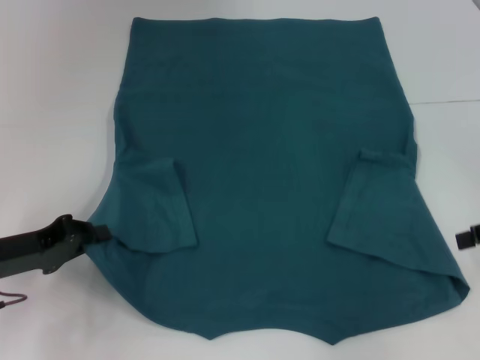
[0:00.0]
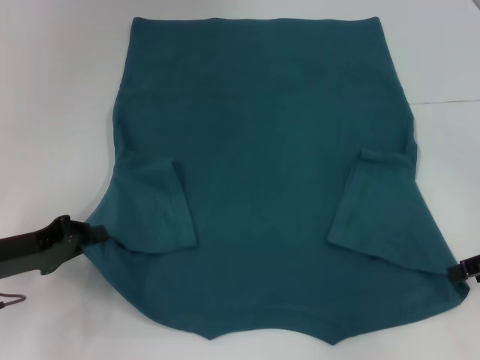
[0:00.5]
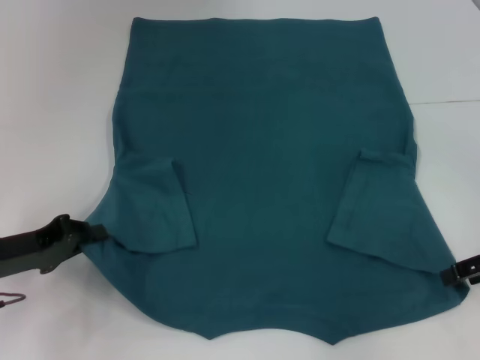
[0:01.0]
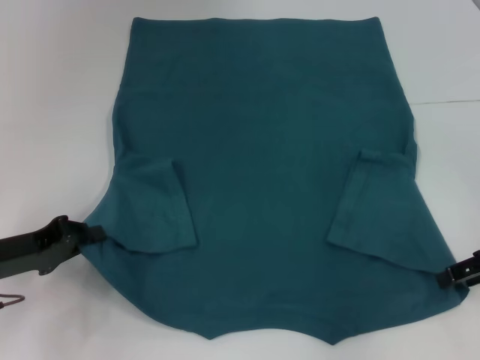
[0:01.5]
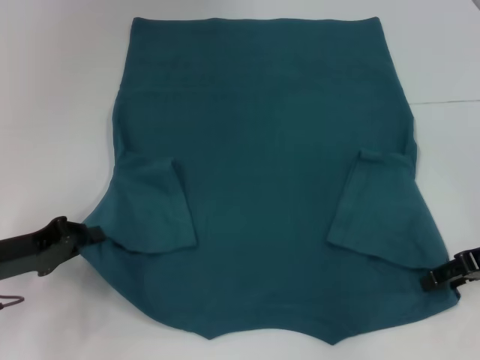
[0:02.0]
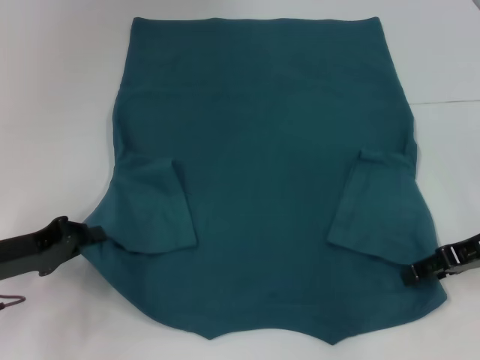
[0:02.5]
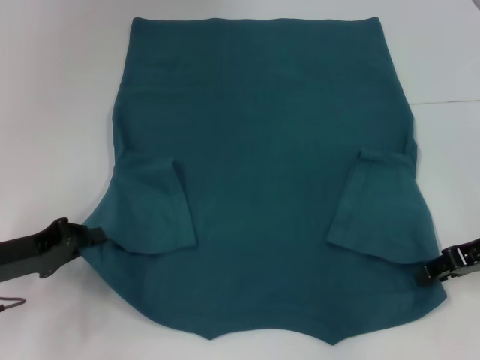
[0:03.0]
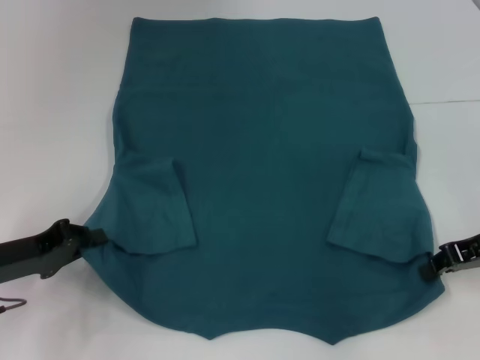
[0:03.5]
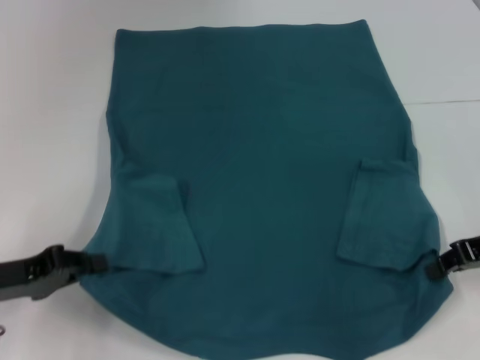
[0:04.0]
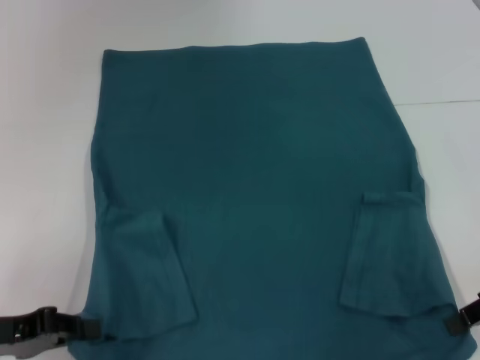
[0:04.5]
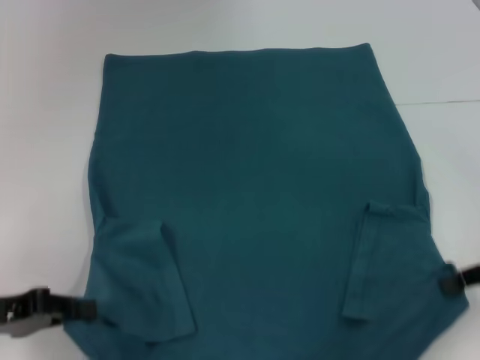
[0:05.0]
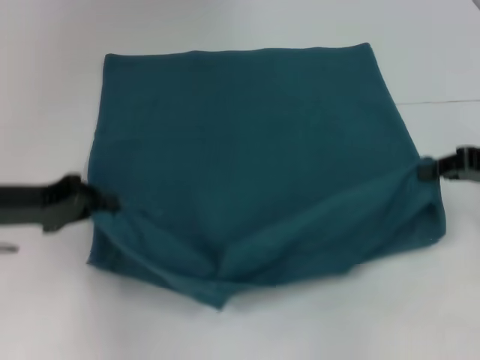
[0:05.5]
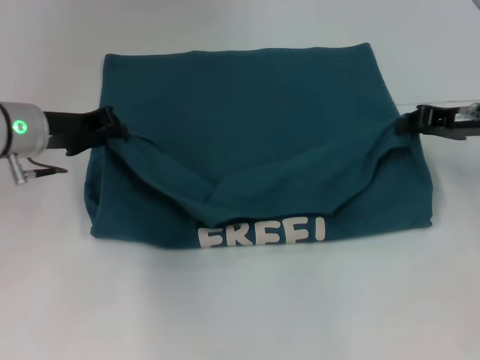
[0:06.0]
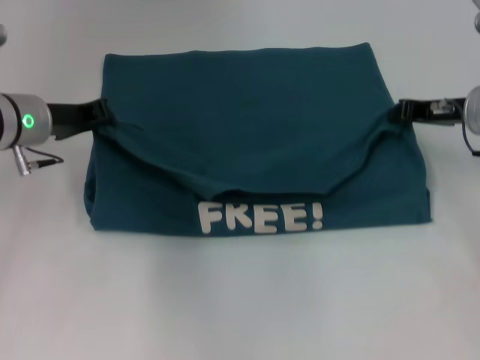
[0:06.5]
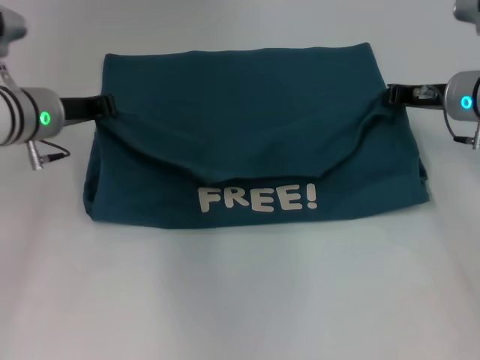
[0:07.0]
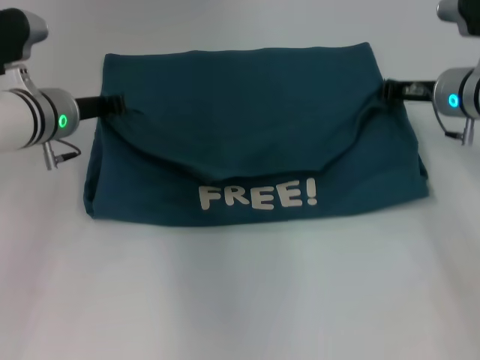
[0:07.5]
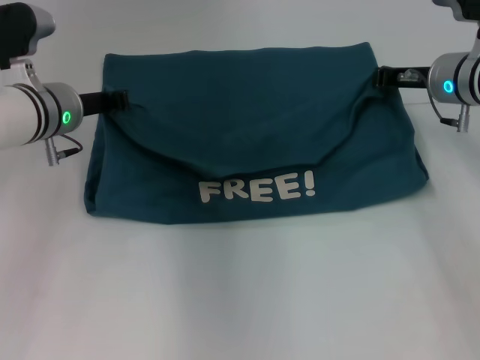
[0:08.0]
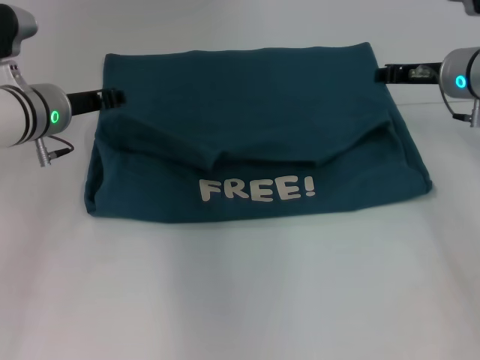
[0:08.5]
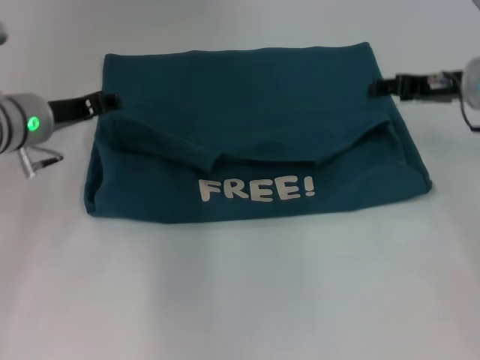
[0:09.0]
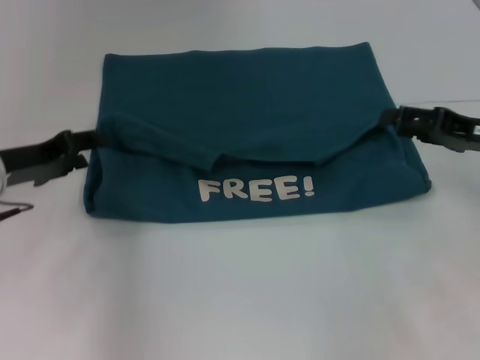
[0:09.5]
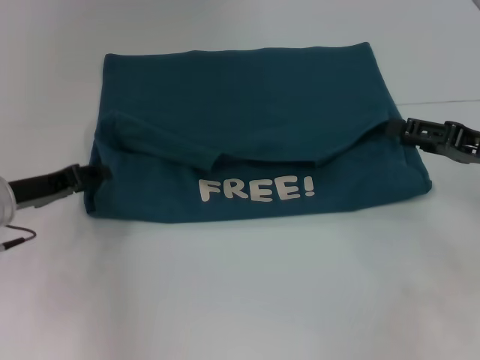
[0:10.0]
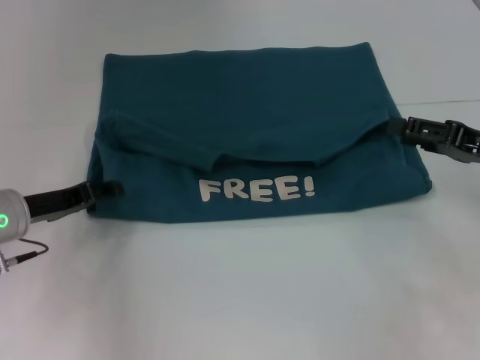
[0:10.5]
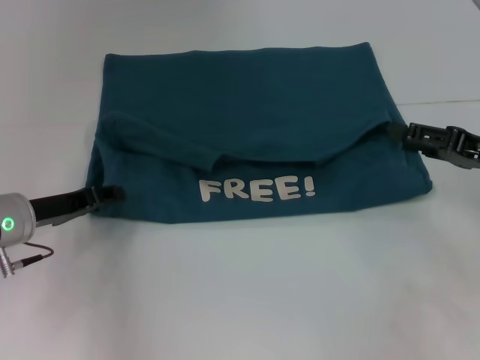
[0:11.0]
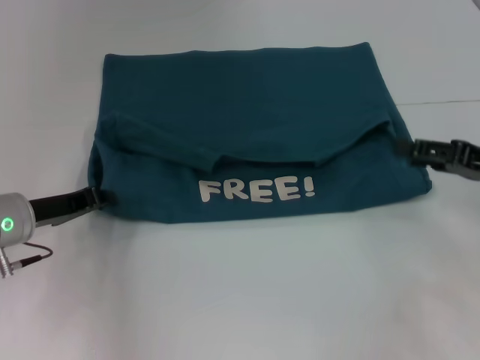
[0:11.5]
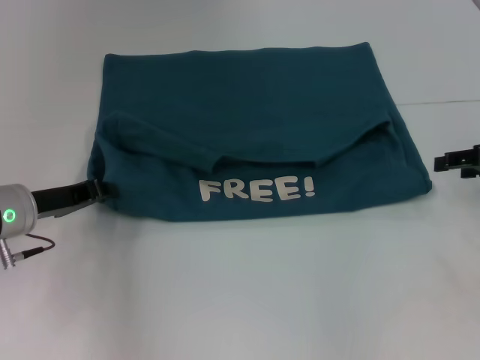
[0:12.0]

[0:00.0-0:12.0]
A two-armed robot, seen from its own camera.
Step, 0:00.0 to 0:04.0: Grab the bottom right corner with your right hand.
Step, 0:04.5 to 0:08.5: Fold the clothes to the left.
Step, 0:04.5 to 0:08.5: Fold the clothes to the right.
0:00.0 to 0:02.0: The right gripper ends up roughly 5 cm from where it was.
0:02.0 to 0:04.0: The right gripper closes its fingers.
0:04.0 to 0:06.0: The left gripper shifts roughly 15 cm forward, to the right and upward; the right gripper travels forward by approximately 10 cm.
0:06.0 to 0:08.0: The left gripper ends up about 5 cm from where it was. Meanwhile the right gripper is displaced to the left and forward by approximately 10 cm.
0:08.0 to 0:10.0: The left gripper heads to the left, backward and downward, covering approximately 15 cm, and opens. Meanwhile the right gripper travels backward and to the right by roughly 15 cm, and opens its fingers.
0:10.0 to 0:12.0: The right gripper shifts by some 5 cm. The left gripper closes.

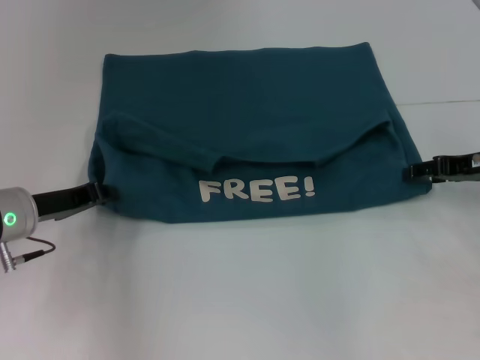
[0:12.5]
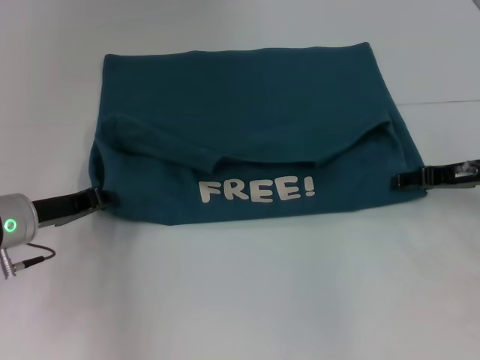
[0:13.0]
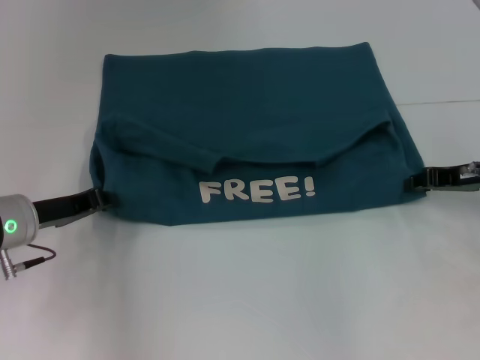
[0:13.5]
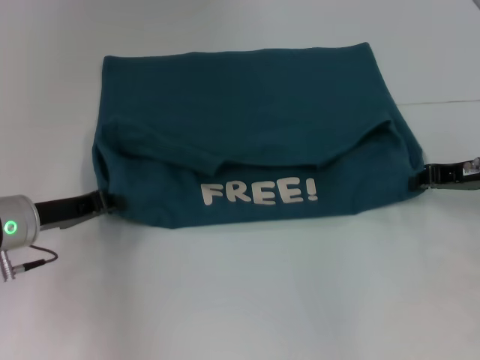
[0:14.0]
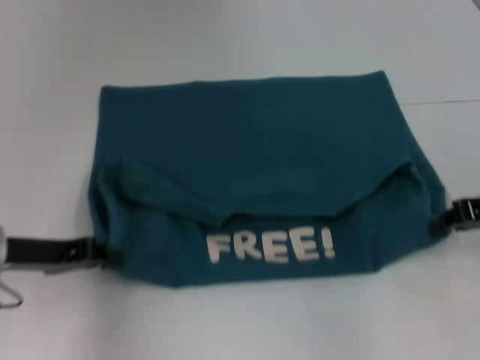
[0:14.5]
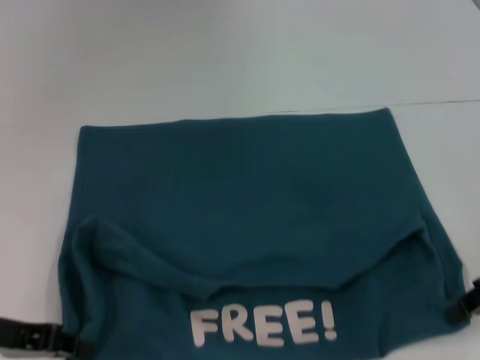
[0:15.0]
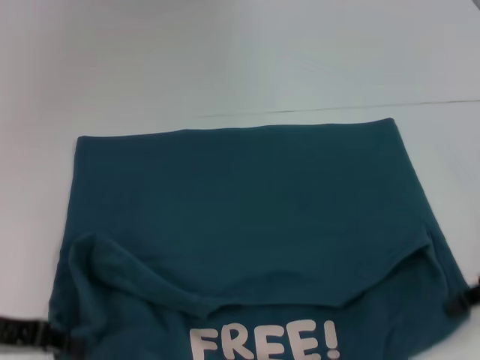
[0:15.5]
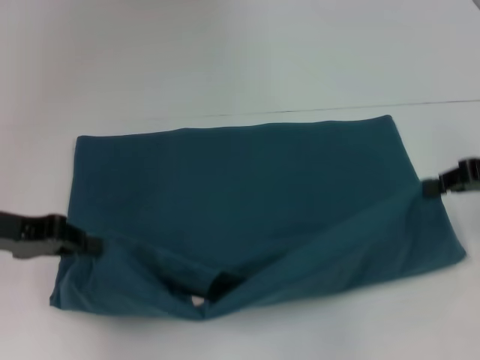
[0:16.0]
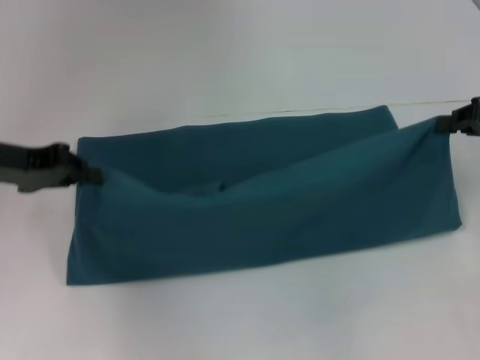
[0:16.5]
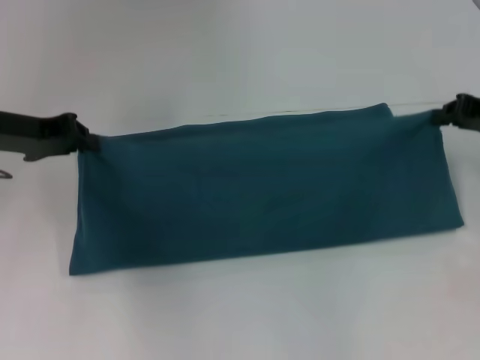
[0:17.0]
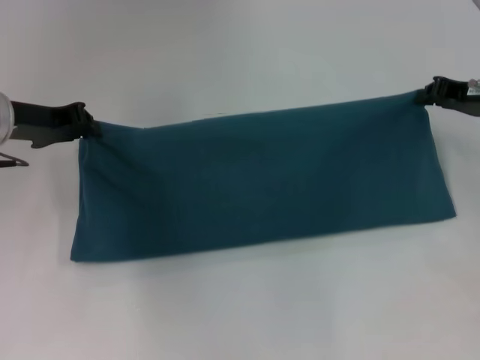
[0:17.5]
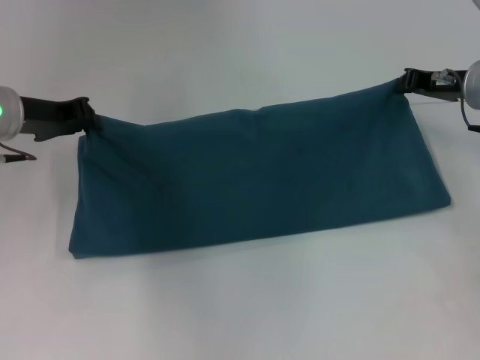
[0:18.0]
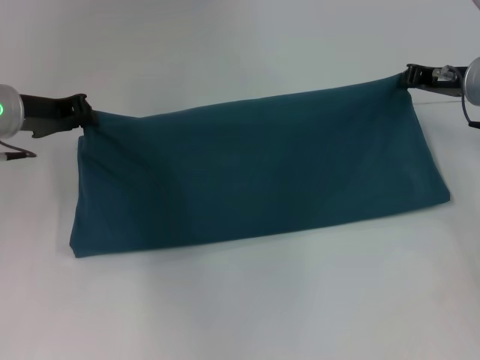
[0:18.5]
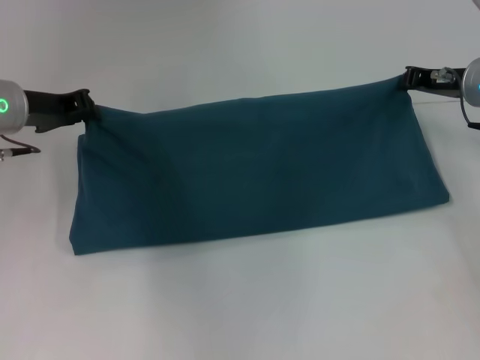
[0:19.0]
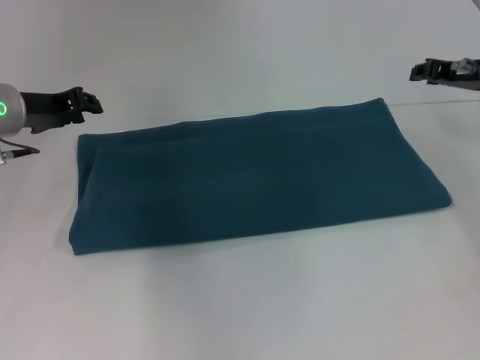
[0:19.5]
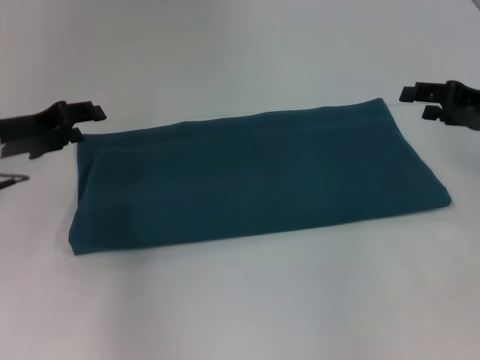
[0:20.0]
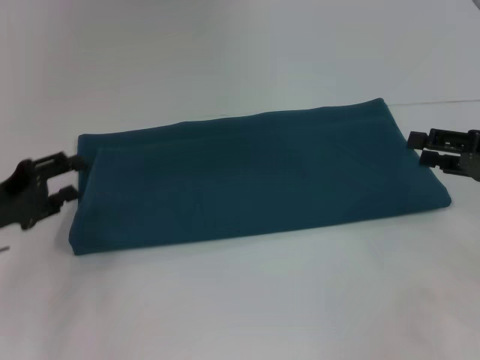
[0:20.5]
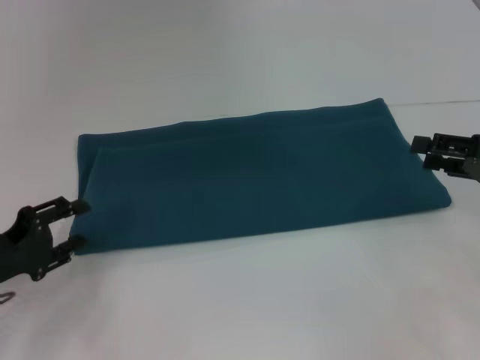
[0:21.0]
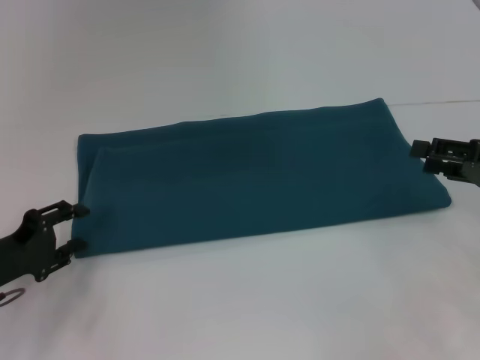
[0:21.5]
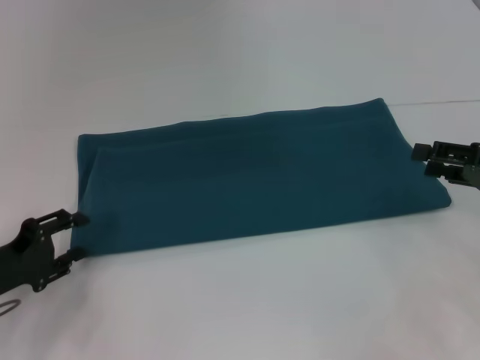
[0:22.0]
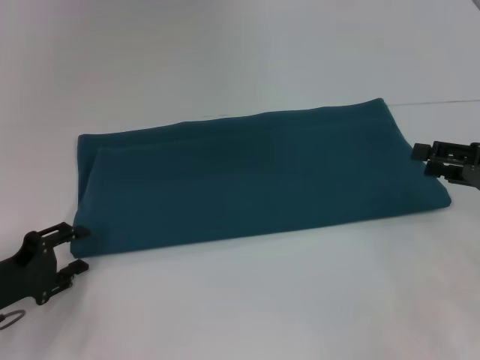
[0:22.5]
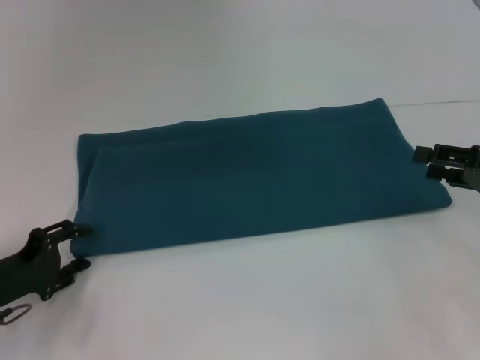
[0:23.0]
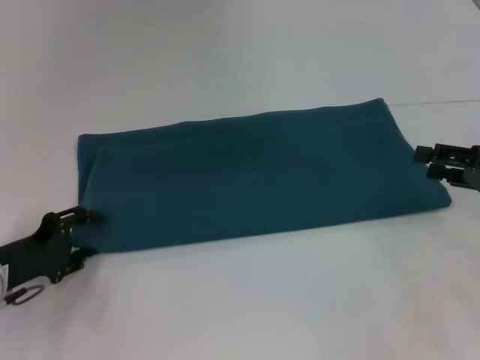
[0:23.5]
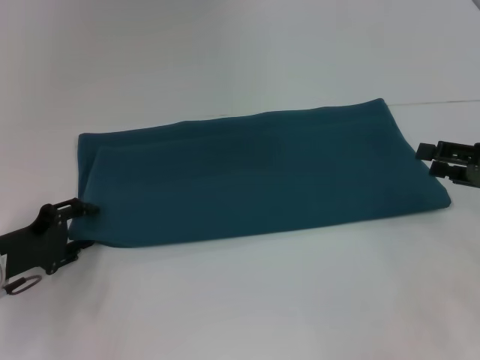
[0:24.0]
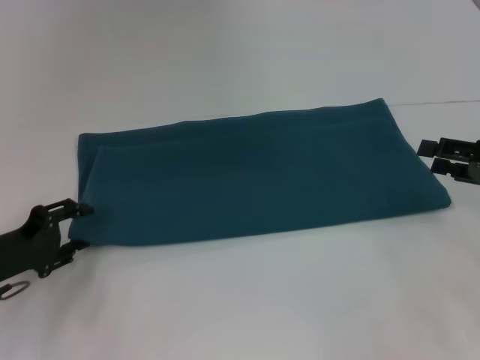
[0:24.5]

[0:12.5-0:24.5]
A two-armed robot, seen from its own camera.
Step, 0:12.5 to 0:15.5: Pull the clothes with your left hand.
Step, 0:12.5 to 0:15.5: Pull the clothes with your right hand.
Step, 0:16.0 to 0:19.0: Fold the clothes to the right.
0:12.5 to 0:14.5: The left gripper shifts by roughly 5 cm; the right gripper moves about 5 cm, and closes its fingers.
0:14.5 to 0:16.5: The right gripper shifts by roughly 5 cm; the left gripper shifts about 10 cm upward.
0:16.5 to 0:18.5: The left gripper goes roughly 5 cm forward. The right gripper goes roughly 10 cm forward and to the left.
0:18.5 to 0:20.5: The right gripper shifts approximately 15 cm backward and to the right, and opens. The left gripper is displaced backward, downward and to the left by some 15 cm, and opens up.
0:20.5 to 0:22.5: The left gripper travels downward by roughly 5 cm.
0:22.5 to 0:24.5: There are only small adjustments of the grippers.

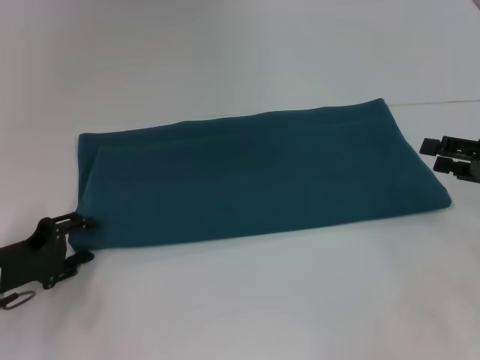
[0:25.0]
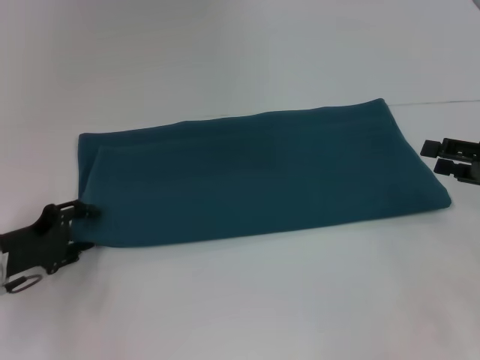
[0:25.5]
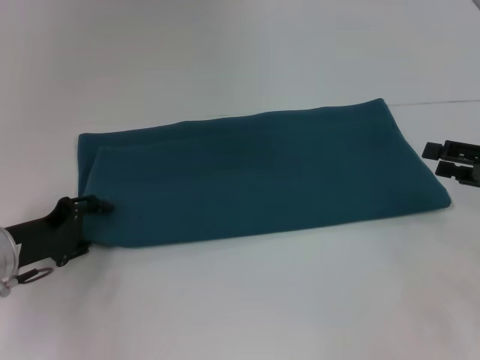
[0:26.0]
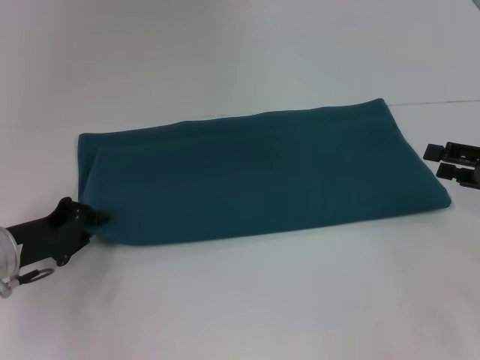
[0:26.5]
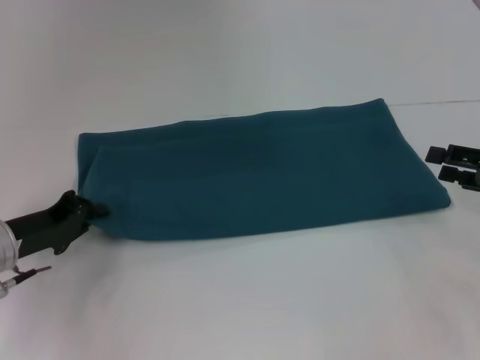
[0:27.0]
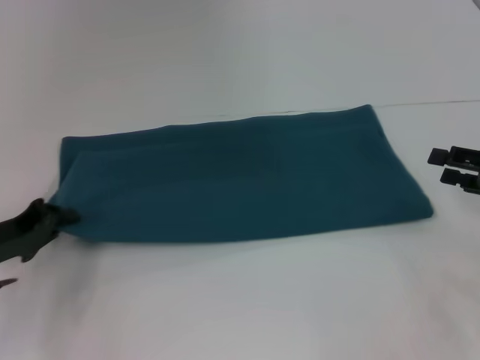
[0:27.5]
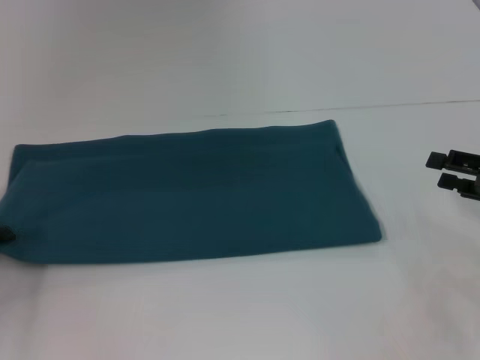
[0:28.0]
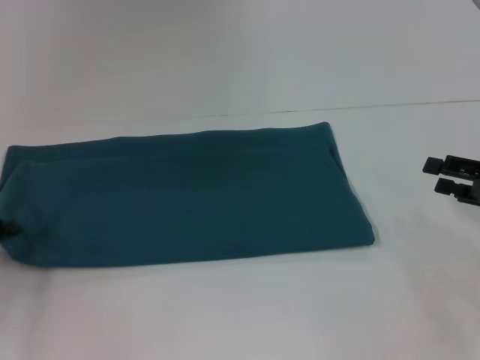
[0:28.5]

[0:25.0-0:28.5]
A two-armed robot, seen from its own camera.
0:25.0 to 0:27.0: The left gripper closes.
0:27.0 to 0:28.5: The left gripper is displaced to the left by some 10 cm.
